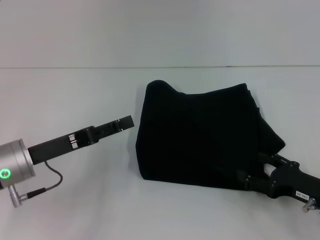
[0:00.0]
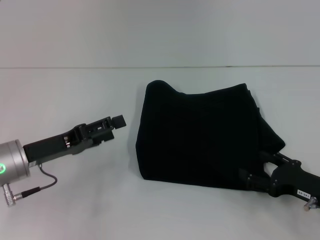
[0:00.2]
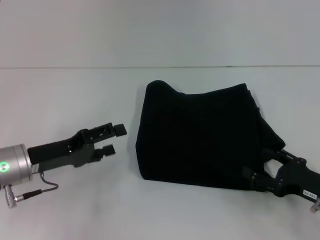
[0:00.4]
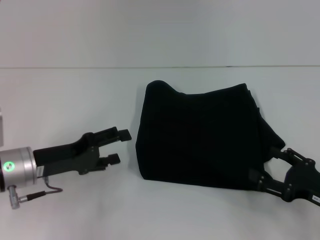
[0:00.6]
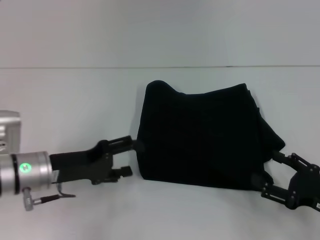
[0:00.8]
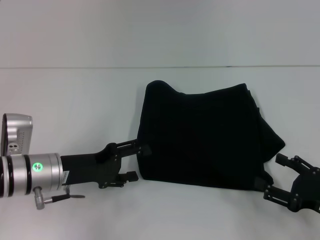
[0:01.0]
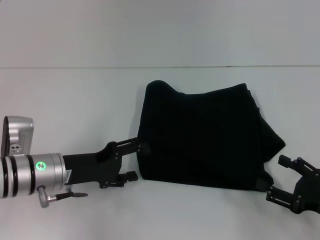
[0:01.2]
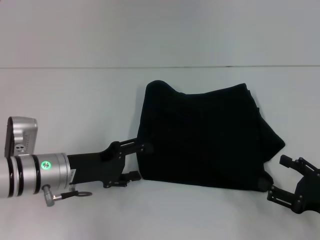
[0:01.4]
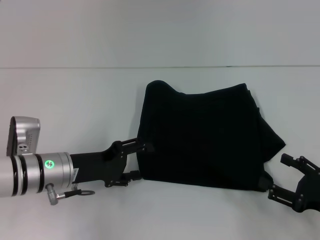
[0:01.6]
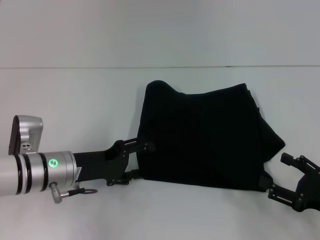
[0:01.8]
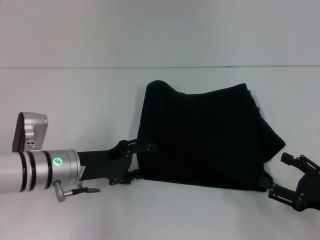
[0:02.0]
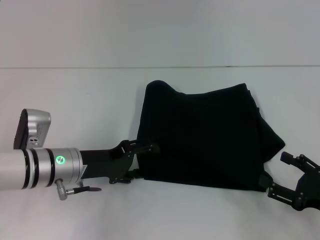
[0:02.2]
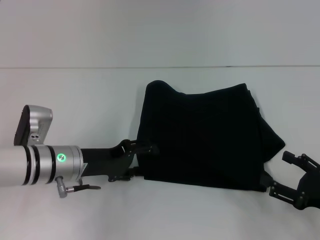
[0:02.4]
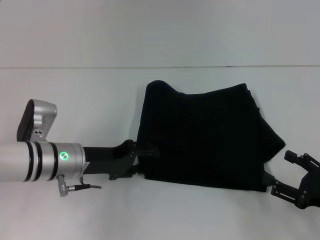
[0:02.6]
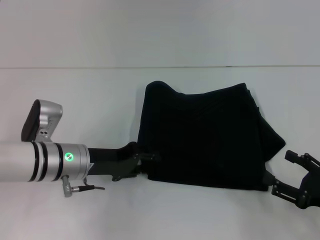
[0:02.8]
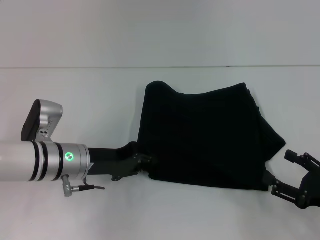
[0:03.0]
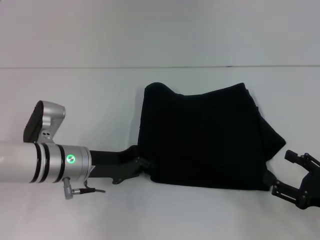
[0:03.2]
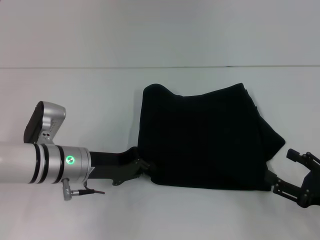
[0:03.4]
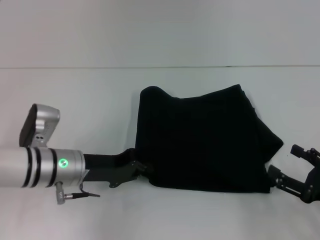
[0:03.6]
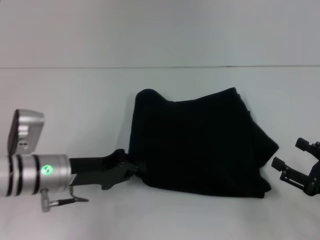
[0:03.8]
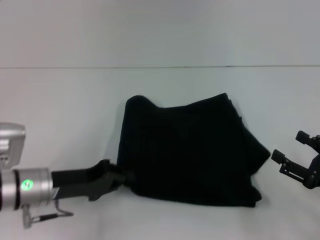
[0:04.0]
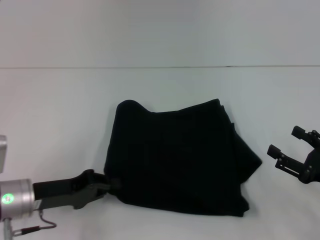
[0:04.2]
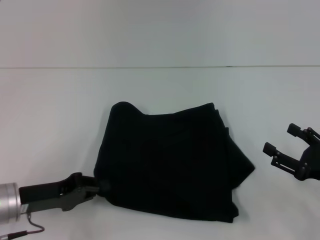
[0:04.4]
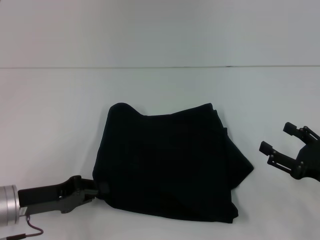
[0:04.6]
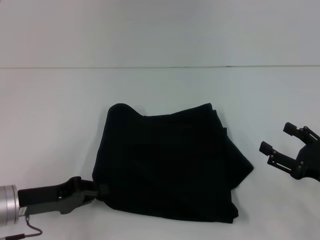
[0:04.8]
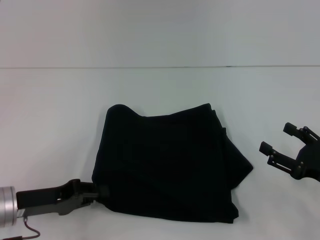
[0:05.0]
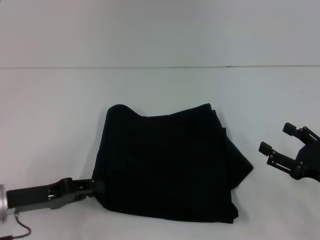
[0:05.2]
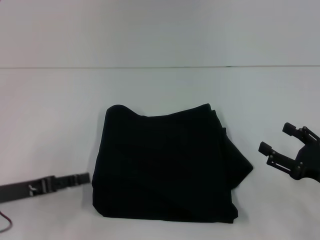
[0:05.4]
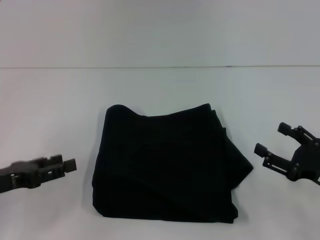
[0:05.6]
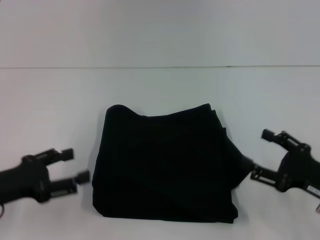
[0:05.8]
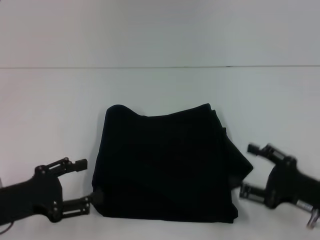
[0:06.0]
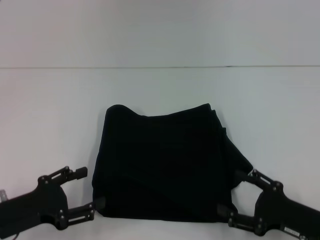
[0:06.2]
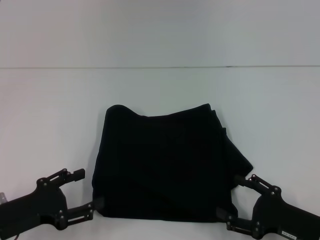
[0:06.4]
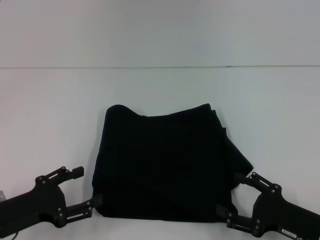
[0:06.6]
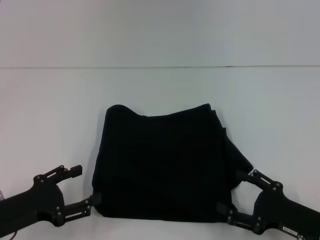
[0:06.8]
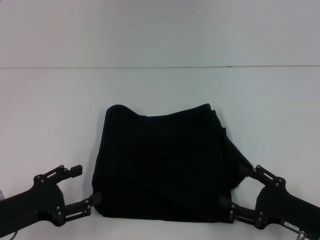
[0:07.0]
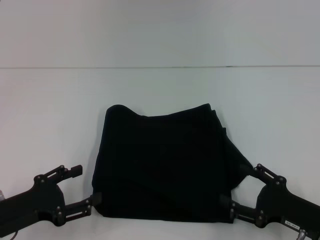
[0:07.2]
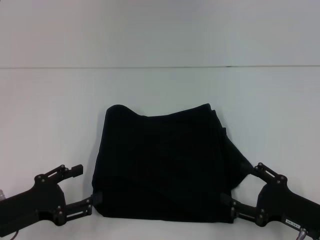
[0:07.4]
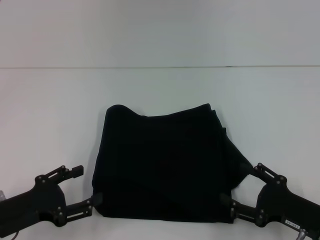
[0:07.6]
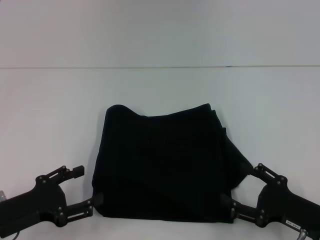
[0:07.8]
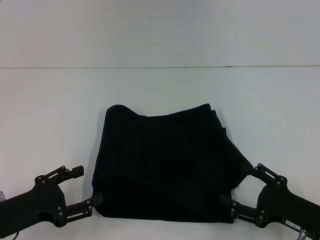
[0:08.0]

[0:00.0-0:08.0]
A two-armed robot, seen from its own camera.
0:00.0 to 0:01.6: The left gripper shifts by about 5 cm; the right gripper moves roughly 5 cm.
0:01.6 to 0:03.2: The left gripper closes.
0:03.2 to 0:04.8: The left gripper goes some 10 cm to the left and backward.
0:04.8 to 0:06.4: The right gripper moves approximately 5 cm. Meanwhile the left gripper opens.
0:06.4 to 0:08.0: Neither gripper changes place.

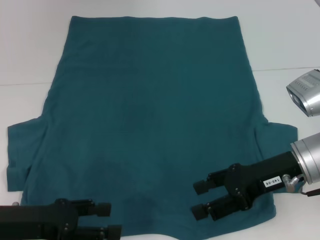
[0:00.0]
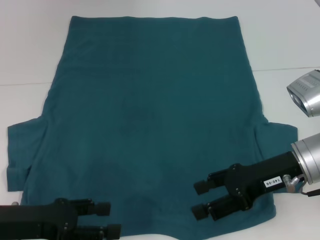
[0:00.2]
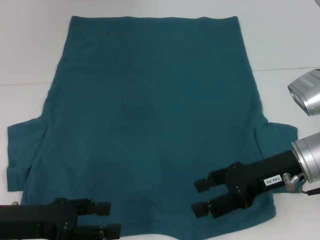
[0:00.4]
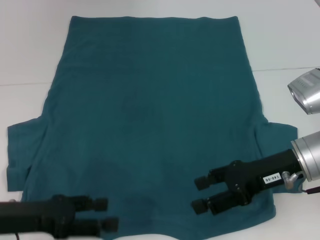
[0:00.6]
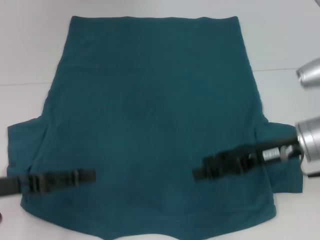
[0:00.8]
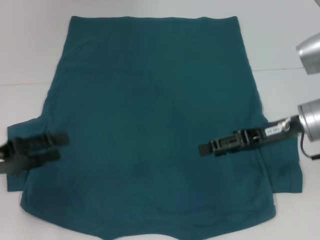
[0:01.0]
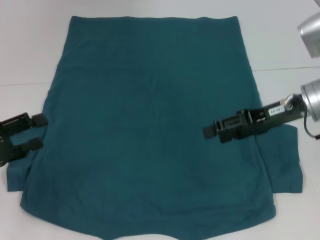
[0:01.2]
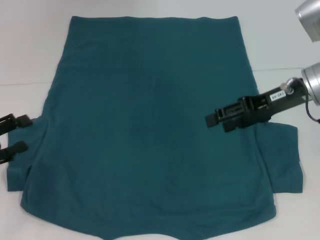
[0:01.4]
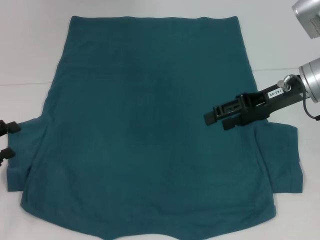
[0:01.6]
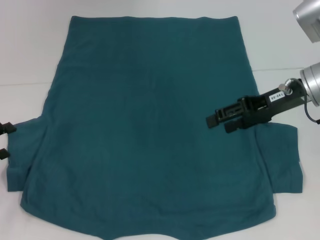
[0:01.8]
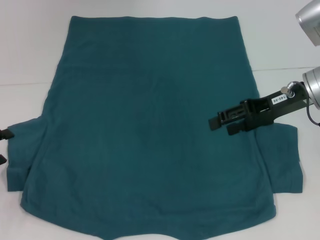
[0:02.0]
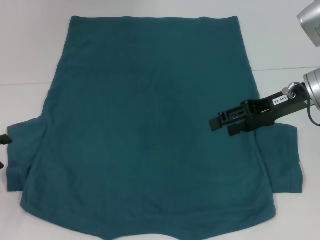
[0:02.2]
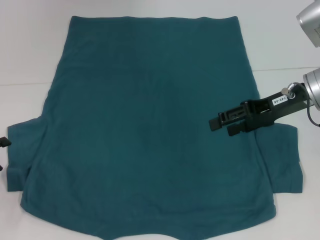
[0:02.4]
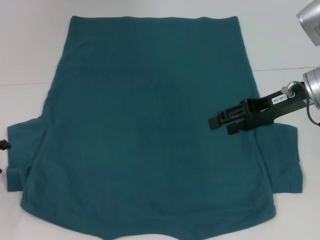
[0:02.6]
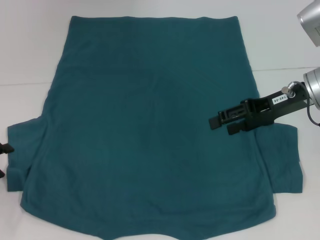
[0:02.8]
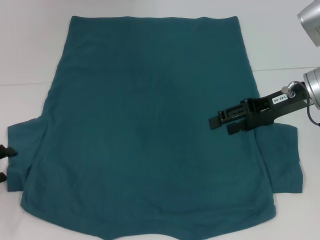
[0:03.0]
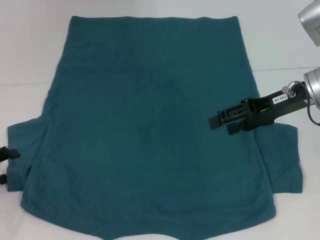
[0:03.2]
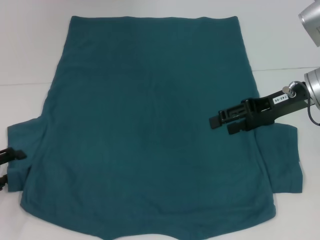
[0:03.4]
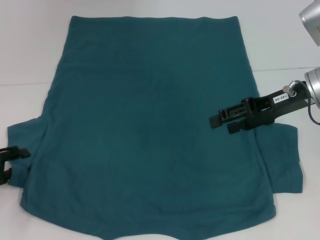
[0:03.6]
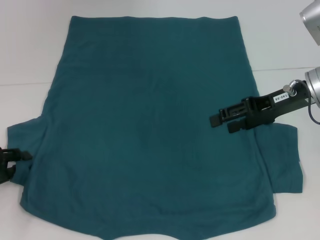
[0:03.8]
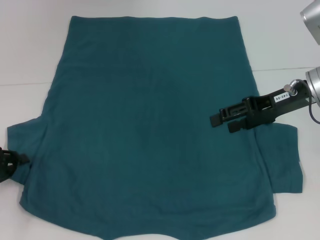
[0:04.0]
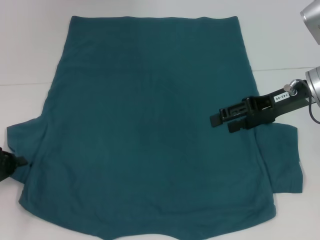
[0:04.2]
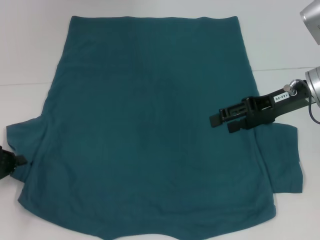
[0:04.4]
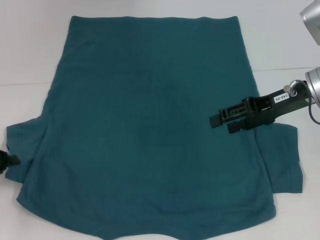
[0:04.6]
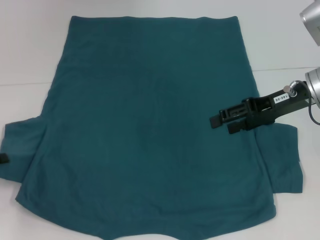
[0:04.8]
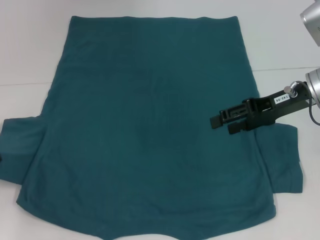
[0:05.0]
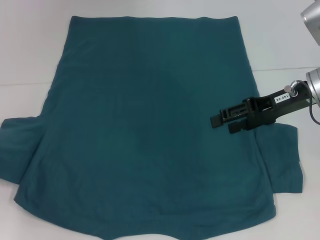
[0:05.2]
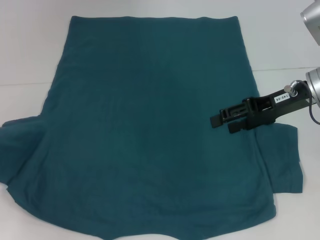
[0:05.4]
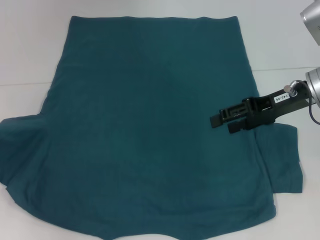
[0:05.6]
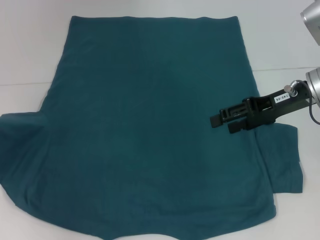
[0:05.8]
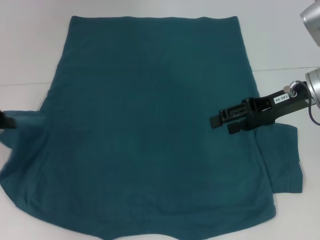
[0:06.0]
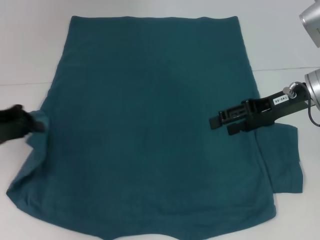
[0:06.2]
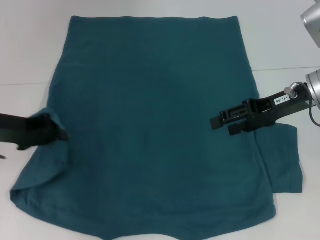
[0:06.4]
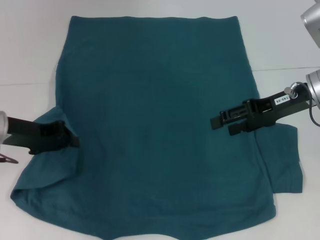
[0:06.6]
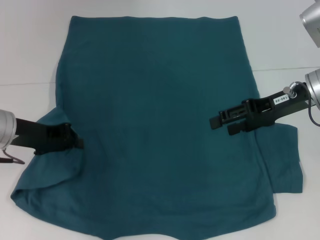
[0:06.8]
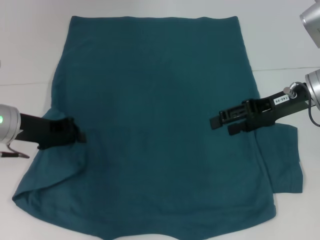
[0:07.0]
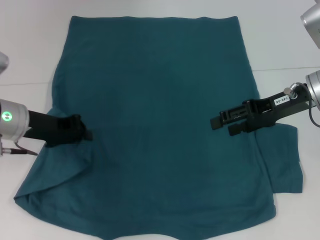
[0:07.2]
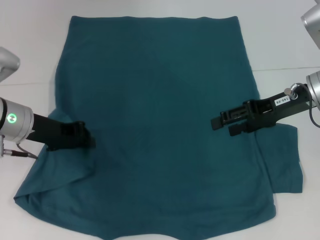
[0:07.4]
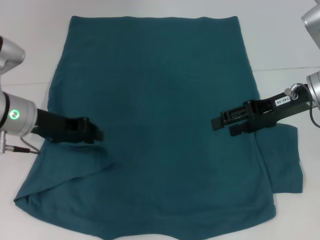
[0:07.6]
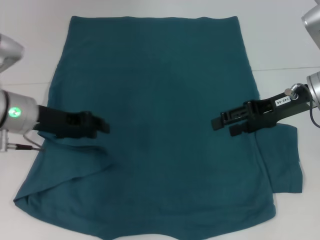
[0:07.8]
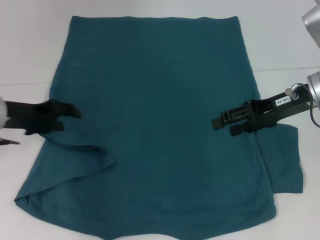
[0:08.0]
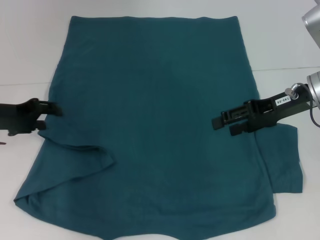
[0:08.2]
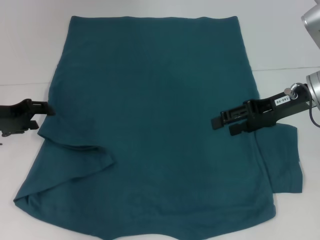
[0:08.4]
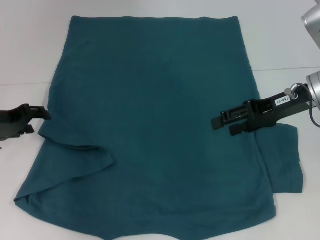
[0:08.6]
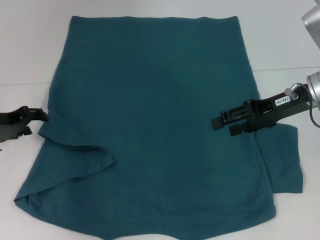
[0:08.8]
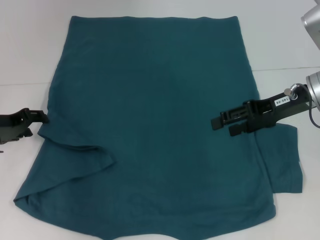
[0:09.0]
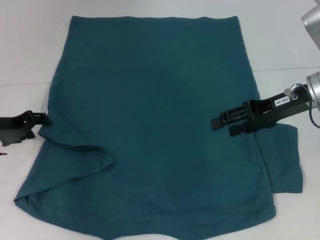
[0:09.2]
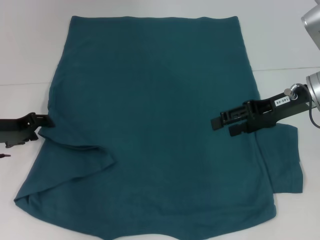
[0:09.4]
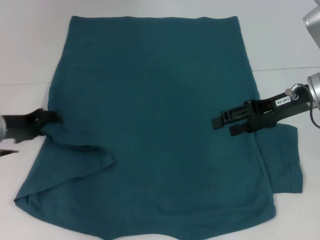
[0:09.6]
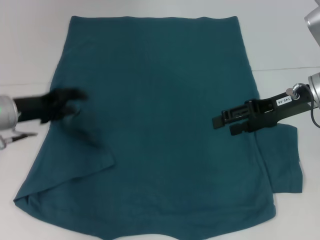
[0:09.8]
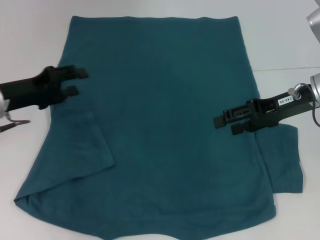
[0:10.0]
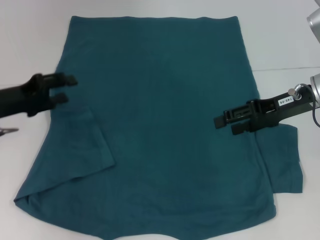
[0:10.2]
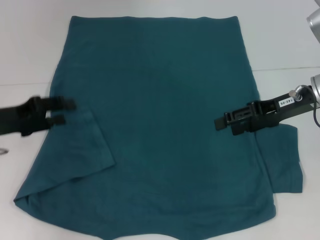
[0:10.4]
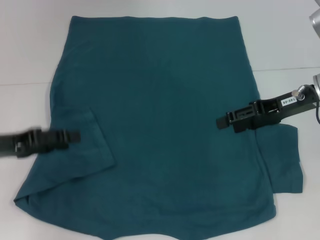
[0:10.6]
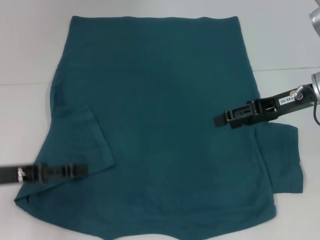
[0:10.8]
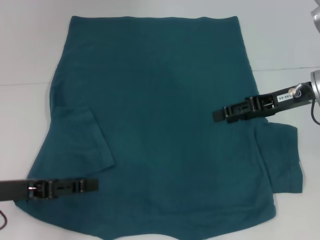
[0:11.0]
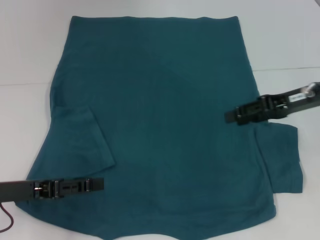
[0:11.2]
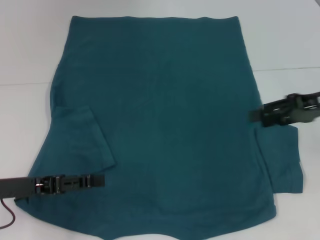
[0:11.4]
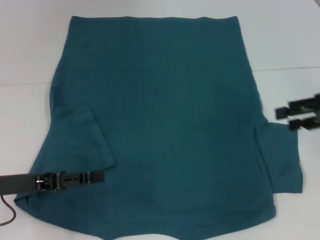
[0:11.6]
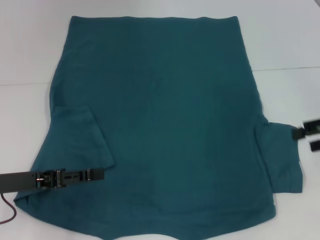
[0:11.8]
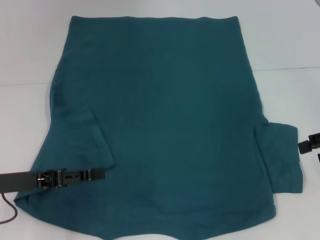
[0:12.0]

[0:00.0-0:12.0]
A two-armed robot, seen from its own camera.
Step, 0:00.0 to 0:10.0: Fold the bottom left sleeve with your left hand.
0:00.0 to 0:01.6: The right gripper goes some 10 cm forward and upward; the left gripper travels to the left by roughly 10 cm.
0:01.6 to 0:03.0: The grippers make only small movements.
0:03.0 to 0:04.4: The left gripper closes its fingers.
0:04.4 to 0:06.0: The left gripper is displaced upward and forward by about 10 cm.
0:06.0 to 0:07.6: The left gripper shifts approximately 15 cm to the right.
0:07.6 to 0:09.0: The left gripper is displaced to the left by approximately 10 cm, and opens its fingers.
0:10.4 to 0:12.0: The right gripper heads to the right and backward, covering some 10 cm. Meanwhile the left gripper moves backward, about 5 cm.

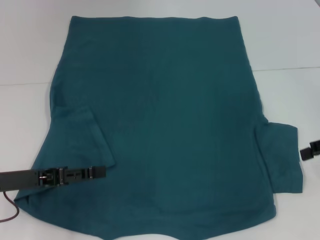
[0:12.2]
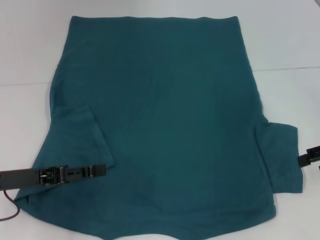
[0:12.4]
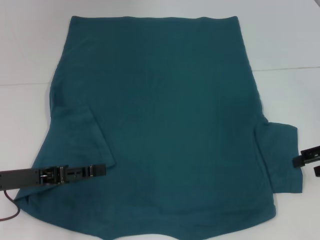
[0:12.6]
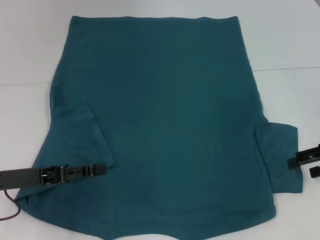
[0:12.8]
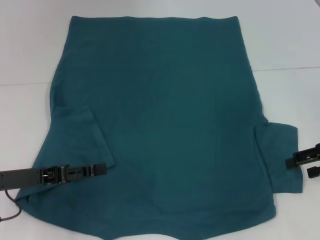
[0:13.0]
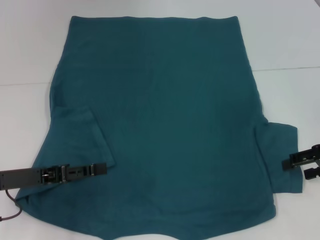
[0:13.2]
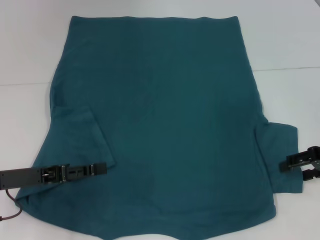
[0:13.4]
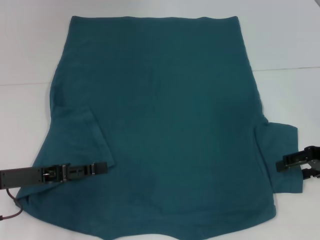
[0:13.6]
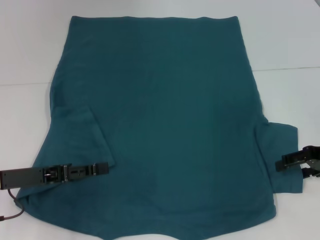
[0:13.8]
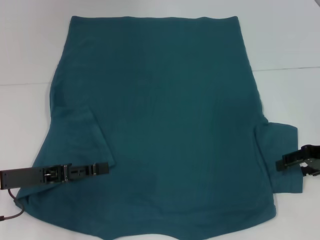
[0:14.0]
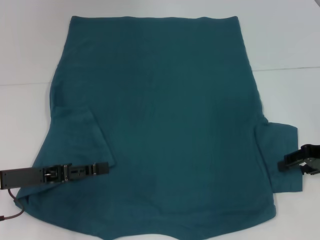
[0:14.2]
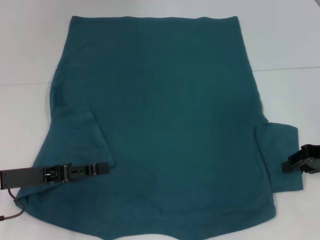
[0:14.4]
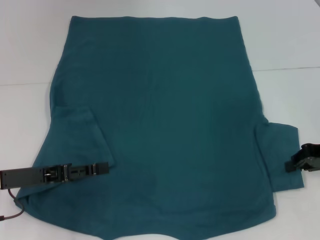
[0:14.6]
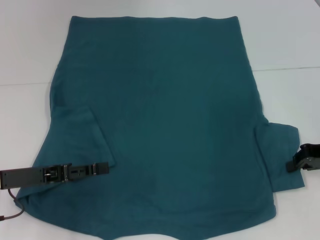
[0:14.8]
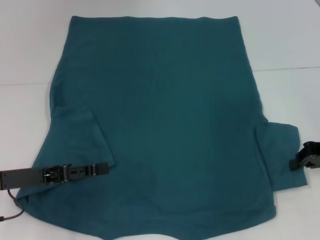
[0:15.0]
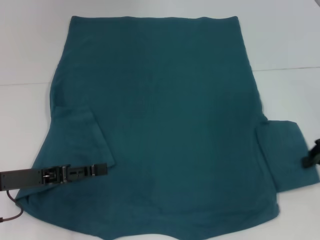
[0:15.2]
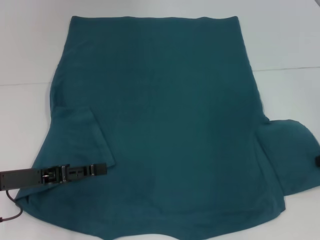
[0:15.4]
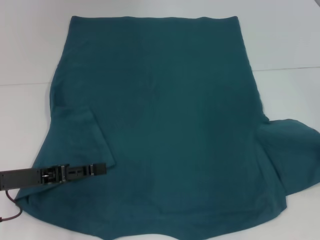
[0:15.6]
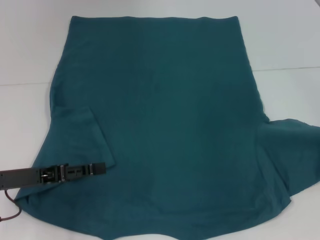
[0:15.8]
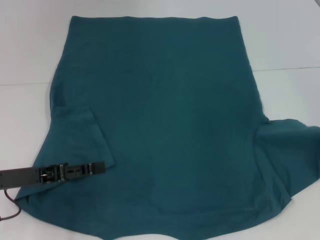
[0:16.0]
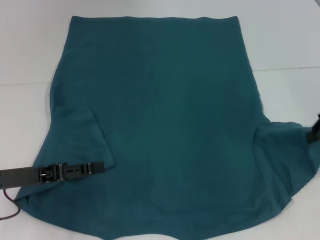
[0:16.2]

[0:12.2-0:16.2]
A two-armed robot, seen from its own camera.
0:12.2 to 0:13.6: The right gripper changes place by roughly 5 cm.
0:13.6 to 0:14.8: The right gripper closes up.
0:14.8 to 0:16.2: The right gripper heads upward, covering roughly 5 cm.
